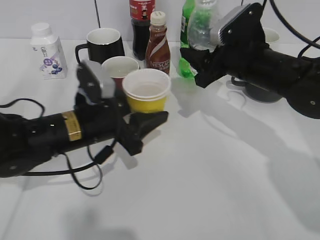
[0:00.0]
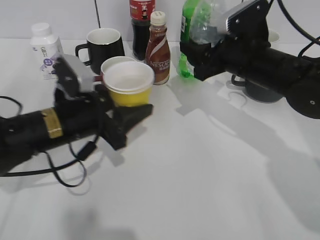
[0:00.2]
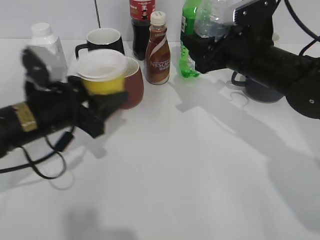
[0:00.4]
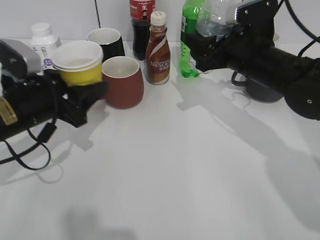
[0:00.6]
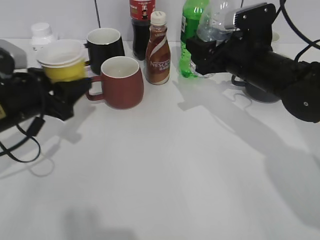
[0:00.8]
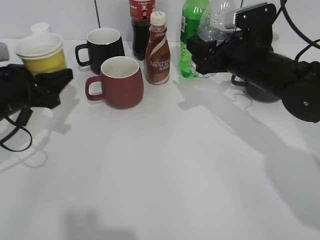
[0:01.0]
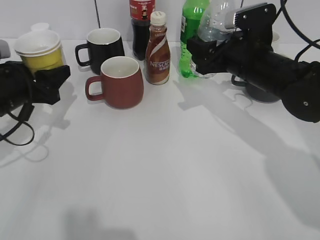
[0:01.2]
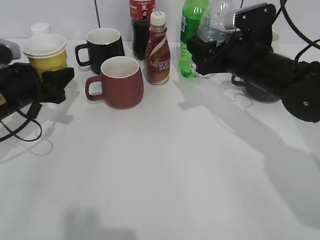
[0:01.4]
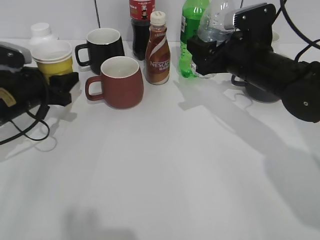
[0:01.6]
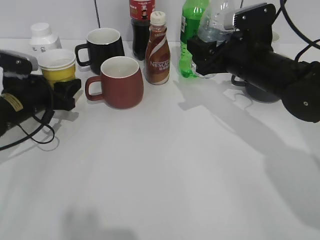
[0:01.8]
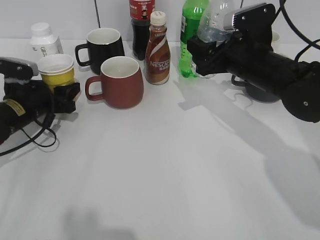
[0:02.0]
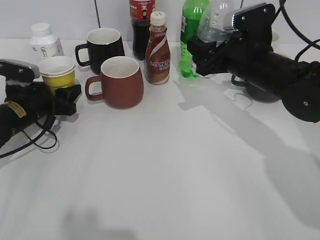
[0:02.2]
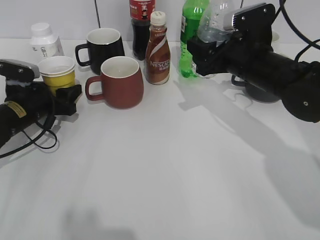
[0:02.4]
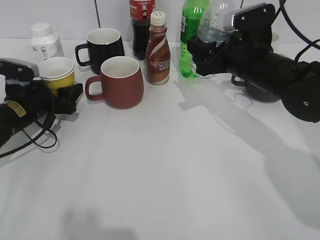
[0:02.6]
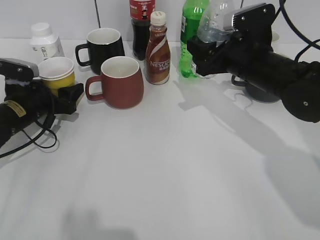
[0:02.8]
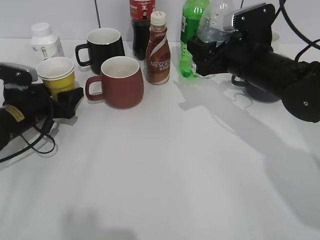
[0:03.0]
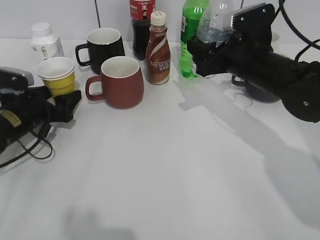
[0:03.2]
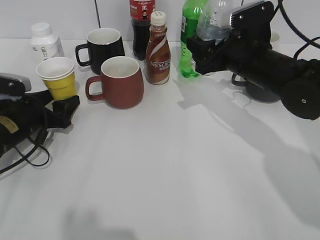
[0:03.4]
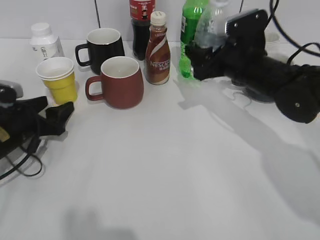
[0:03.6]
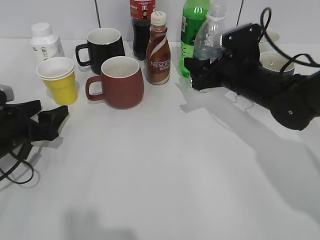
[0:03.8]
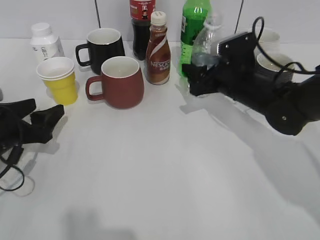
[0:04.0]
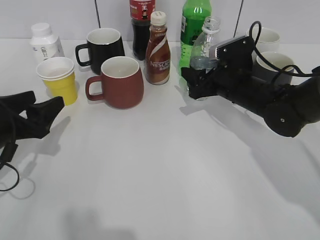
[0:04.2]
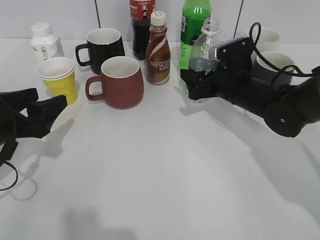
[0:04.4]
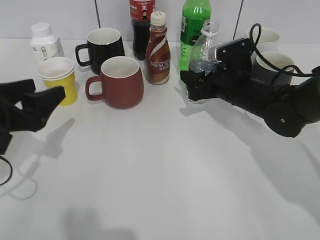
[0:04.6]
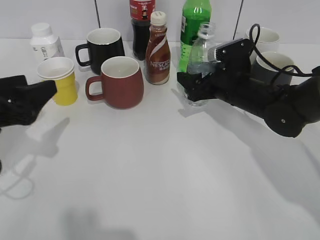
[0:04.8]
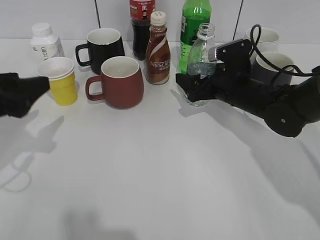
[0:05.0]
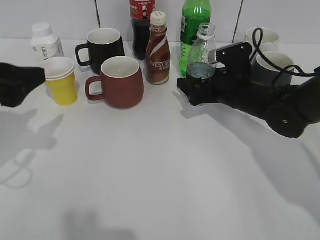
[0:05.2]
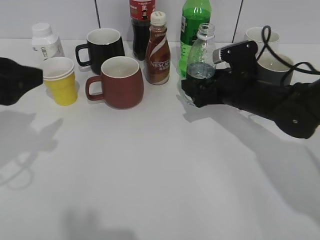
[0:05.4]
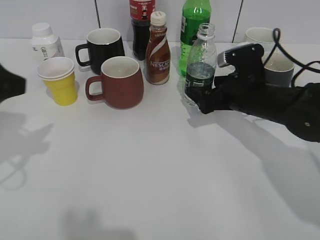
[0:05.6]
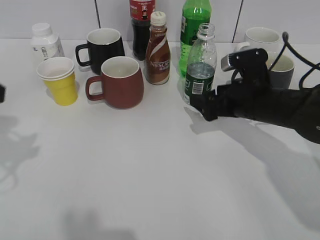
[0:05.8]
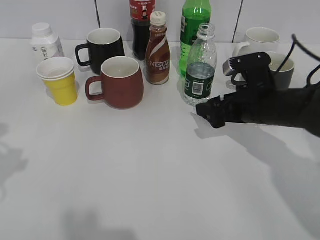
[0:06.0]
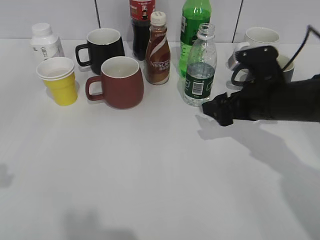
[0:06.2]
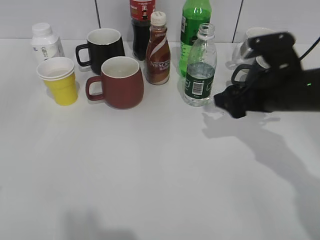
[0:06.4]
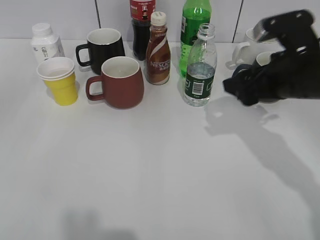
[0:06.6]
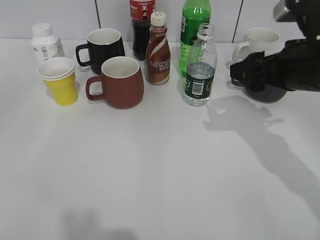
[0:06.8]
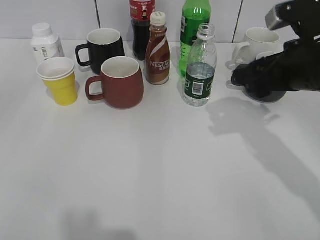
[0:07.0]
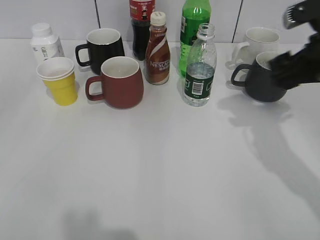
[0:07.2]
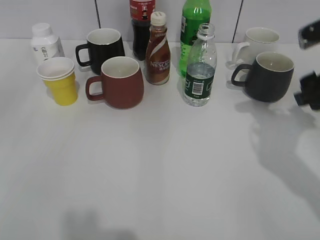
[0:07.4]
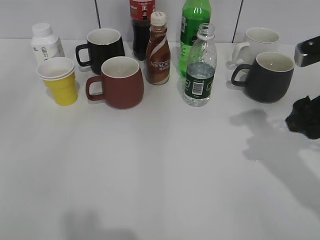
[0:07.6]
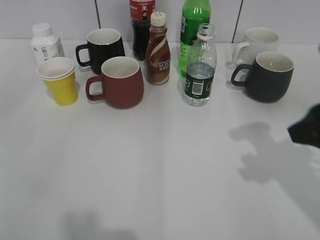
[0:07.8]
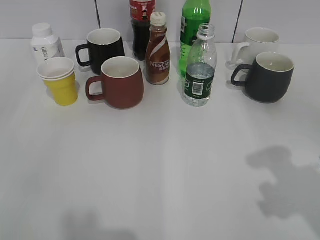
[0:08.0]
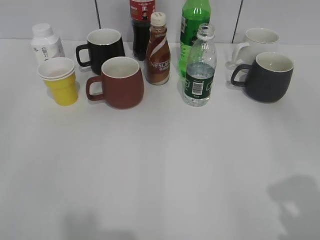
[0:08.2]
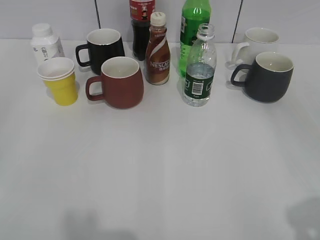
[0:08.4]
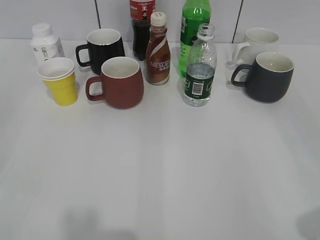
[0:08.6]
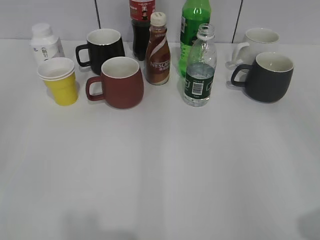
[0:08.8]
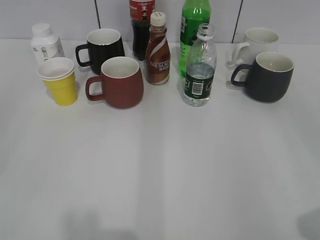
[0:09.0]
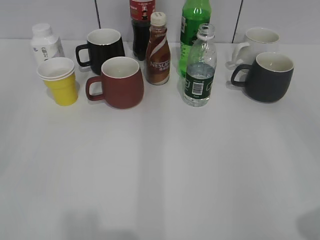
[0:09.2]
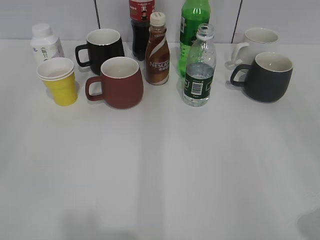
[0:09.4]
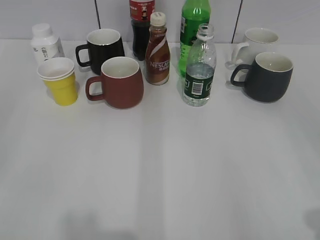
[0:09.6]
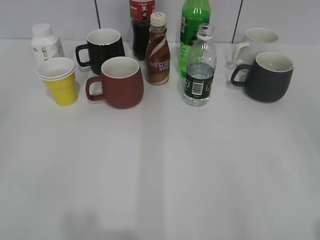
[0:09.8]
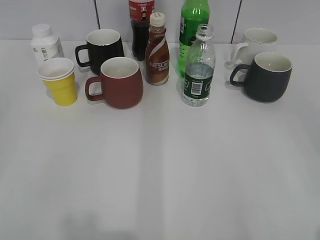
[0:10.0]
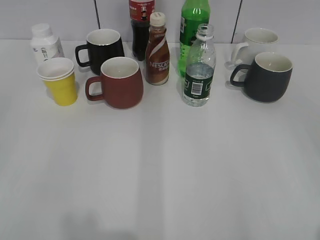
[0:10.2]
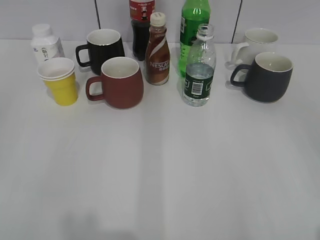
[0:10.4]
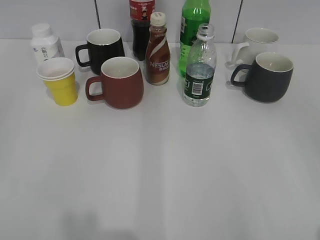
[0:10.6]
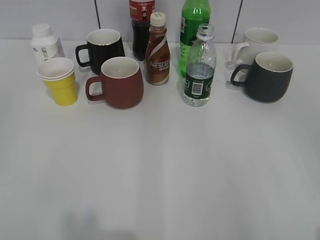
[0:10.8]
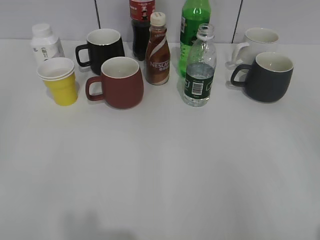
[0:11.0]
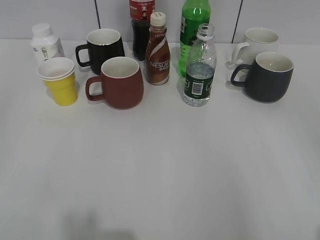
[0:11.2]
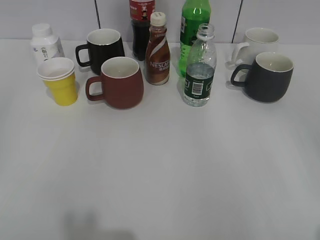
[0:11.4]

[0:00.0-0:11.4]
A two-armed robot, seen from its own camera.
Step, 0:00.0 to 0:03.0: Place the yellow paper cup on the table with left gripper.
Step, 0:03.2 to 0:05.4: Place the water bottle on the table with right gripper.
0:00.0 to 0:01.4: The left gripper moves to the left, approximately 15 cm.
0:01.4 to 0:02.8: The left gripper is displaced downward by about 5 cm, and opens.
0:02.8 to 0:04.2: The right gripper heads downward, covering roughly 5 cm. The left gripper shifts about 10 cm backward.
0:04.2 to 0:05.6: The right gripper opens, while the left gripper travels upward by roughly 15 cm.
0:05.6 to 0:07.2: The right gripper heads upward, backward and to the right, covering about 15 cm, and closes its fingers, while the left gripper travels backward and to the left by approximately 15 cm.
0:07.2 to 0:08.6: The right gripper shifts about 25 cm backward.
0:08.6 to 0:10.0: The grippers move only a little.
0:10.0 to 0:11.4: Both grippers stay put.

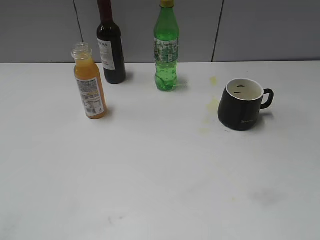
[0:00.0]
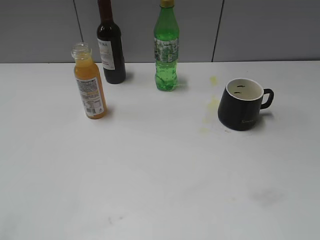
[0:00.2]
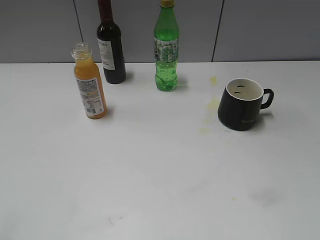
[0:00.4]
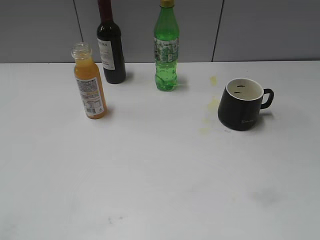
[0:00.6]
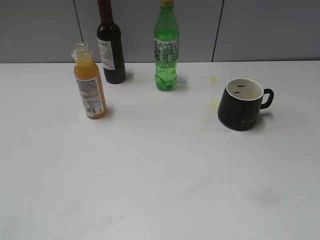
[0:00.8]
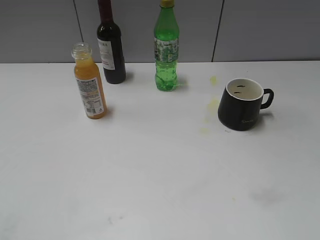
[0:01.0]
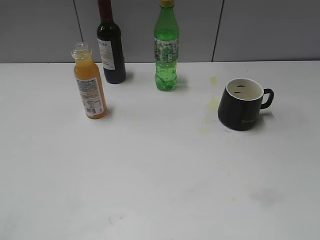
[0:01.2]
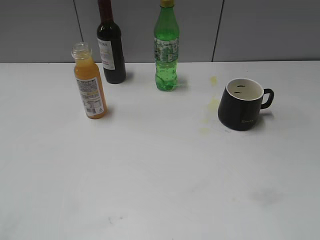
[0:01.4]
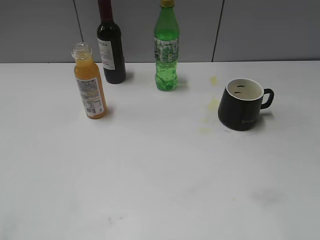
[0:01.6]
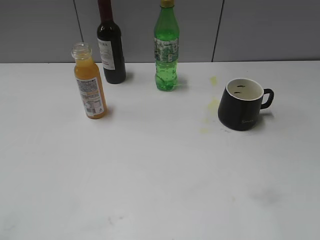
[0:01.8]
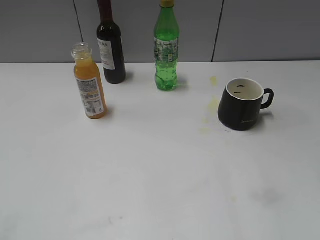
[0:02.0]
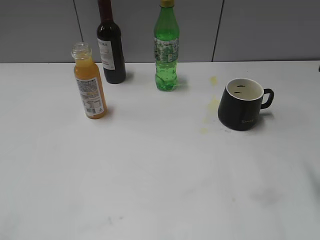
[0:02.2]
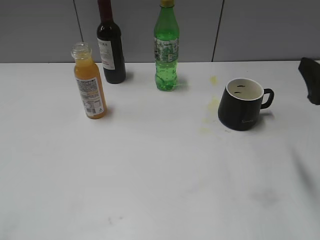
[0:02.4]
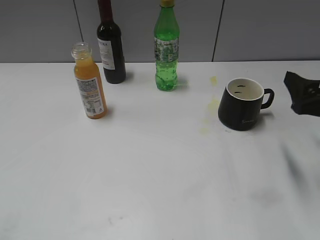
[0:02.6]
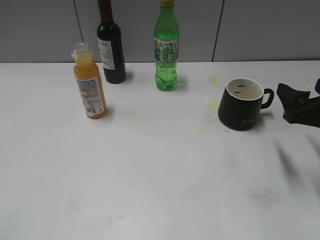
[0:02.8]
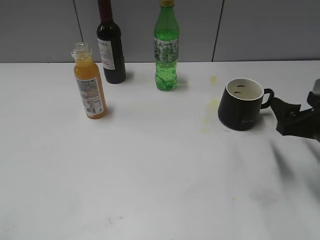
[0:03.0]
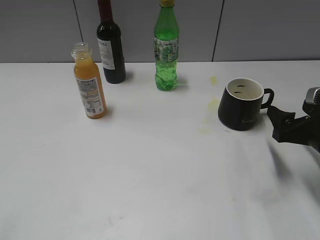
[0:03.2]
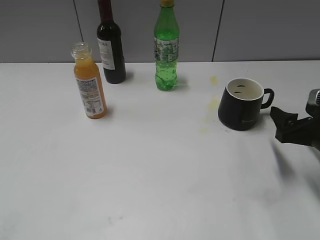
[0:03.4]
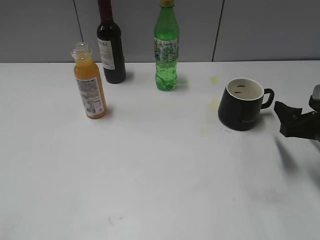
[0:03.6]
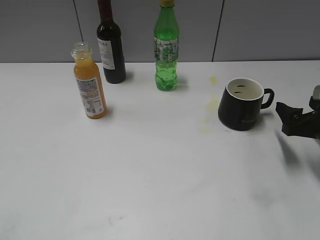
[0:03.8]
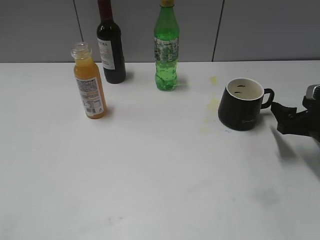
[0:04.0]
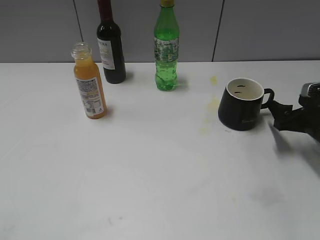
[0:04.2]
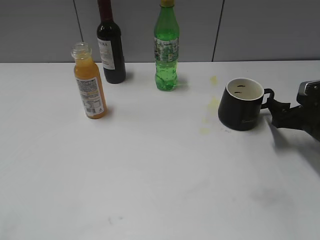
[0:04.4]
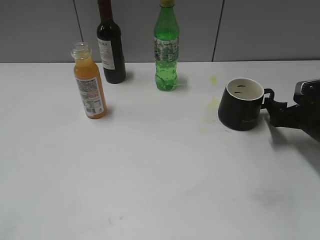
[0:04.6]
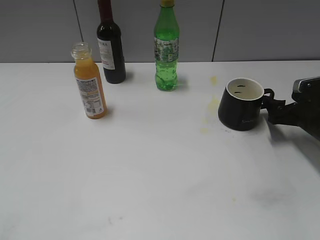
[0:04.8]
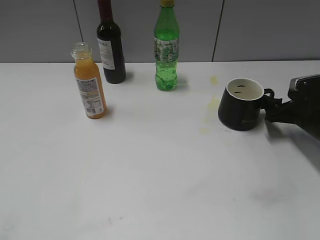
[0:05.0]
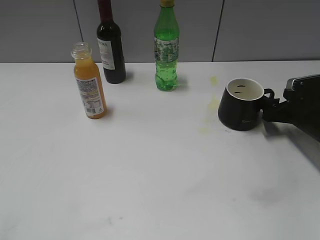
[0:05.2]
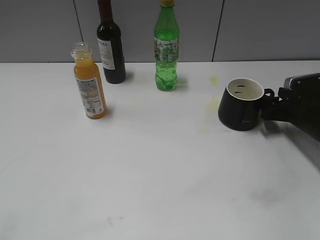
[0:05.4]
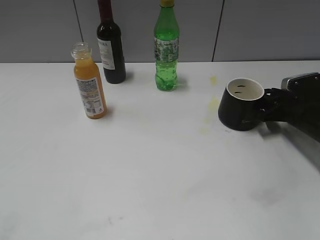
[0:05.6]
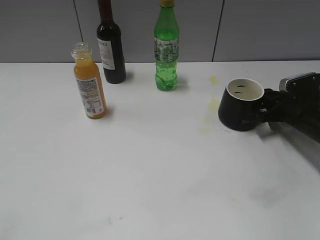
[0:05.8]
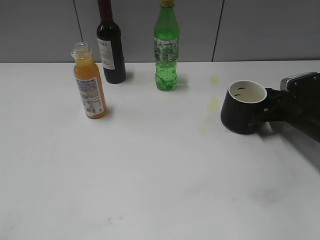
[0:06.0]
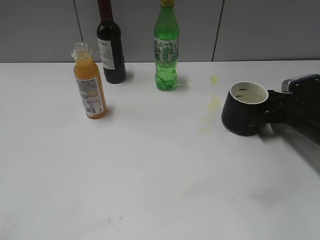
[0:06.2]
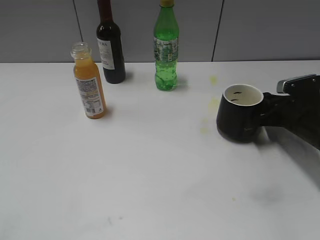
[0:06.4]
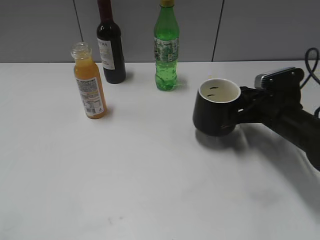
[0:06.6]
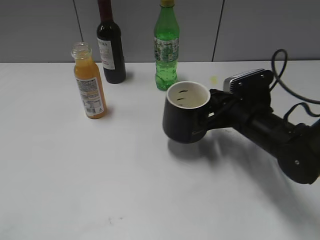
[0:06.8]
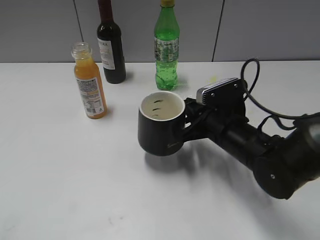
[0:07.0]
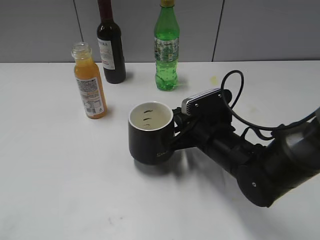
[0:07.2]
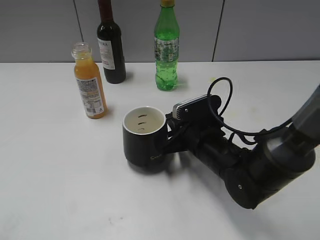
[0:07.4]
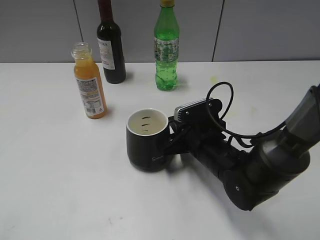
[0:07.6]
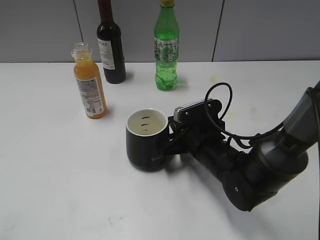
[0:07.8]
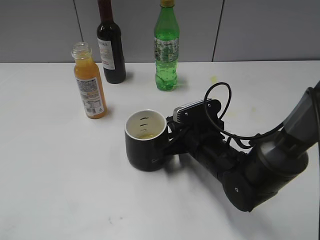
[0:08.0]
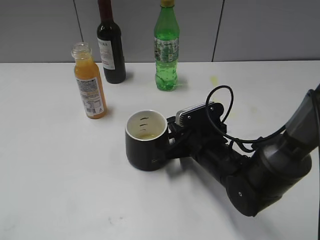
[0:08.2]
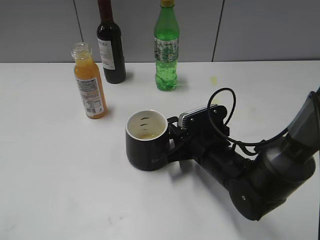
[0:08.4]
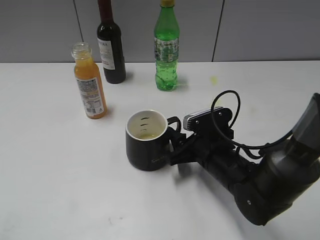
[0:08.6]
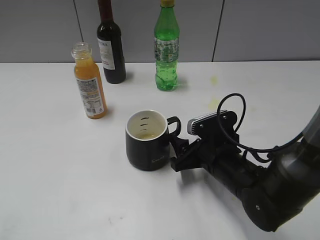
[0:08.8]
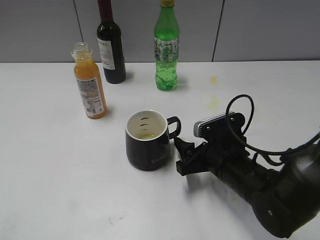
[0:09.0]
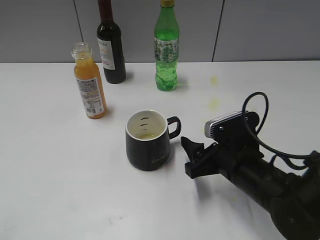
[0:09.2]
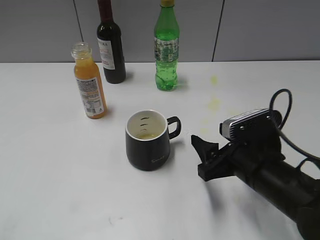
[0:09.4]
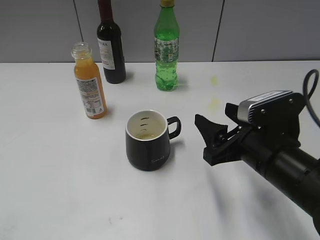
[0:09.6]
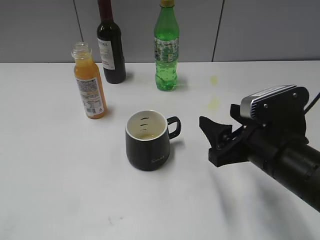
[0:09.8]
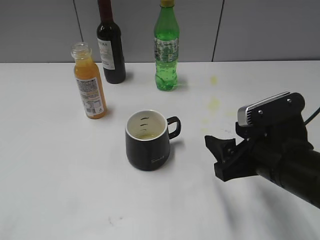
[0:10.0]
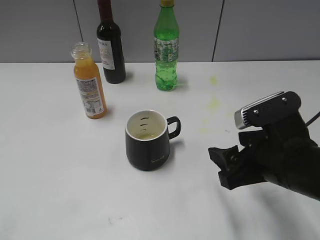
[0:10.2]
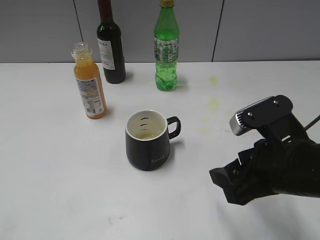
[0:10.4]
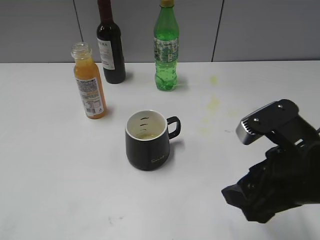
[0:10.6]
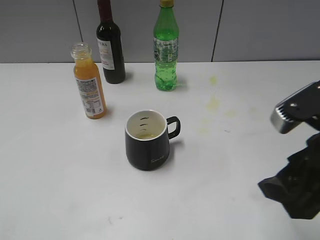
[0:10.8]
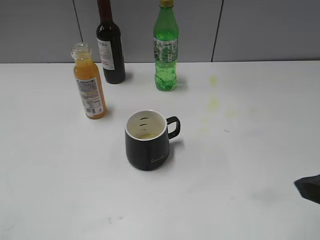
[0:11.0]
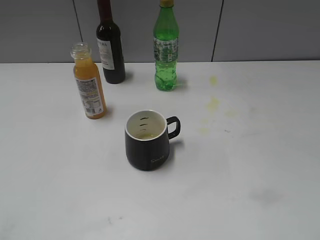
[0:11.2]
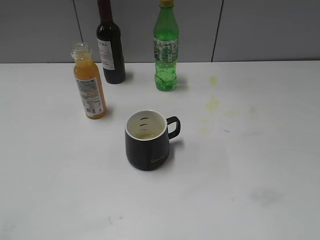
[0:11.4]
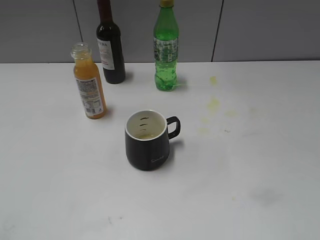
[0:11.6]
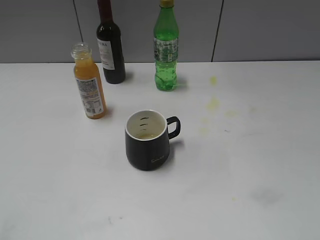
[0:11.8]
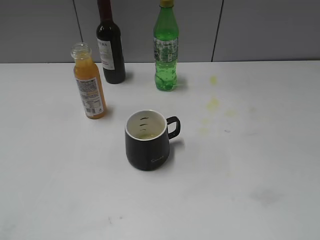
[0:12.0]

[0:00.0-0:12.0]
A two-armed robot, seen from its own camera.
Step, 0:02.2 to 0:06.2: Grasp the black cup with right gripper.
Step, 0:06.4 to 0:08.6: Place the black cup in the center of view with right gripper.
0:01.6 to 0:03.0: The right gripper is displaced forward and downward by some 25 cm.
0:03.0 to 0:04.4: The right gripper shifts roughly 10 cm forward and downward.
0:04.4 to 0:06.0: The right gripper moves forward, about 5 cm, and closes up.
0:06.0 to 0:07.6: The right gripper moves to the left, about 20 cm.
0:07.6 to 0:09.0: The right gripper opens up.
0:09.0 to 0:10.4: The right gripper travels upward and backward by roughly 15 cm.
0:10.4 to 0:12.0: The right gripper moves backward, to the right and upward, roughly 25 cm.
